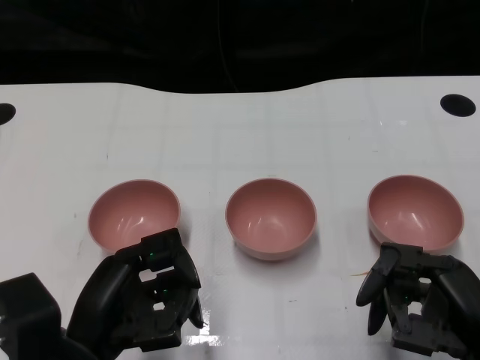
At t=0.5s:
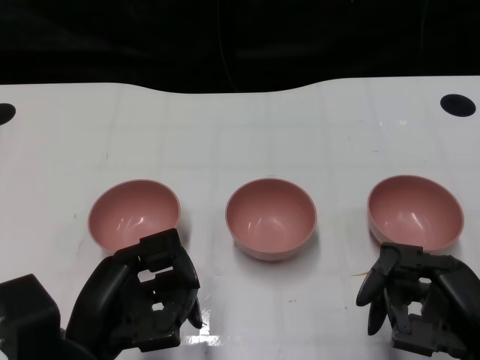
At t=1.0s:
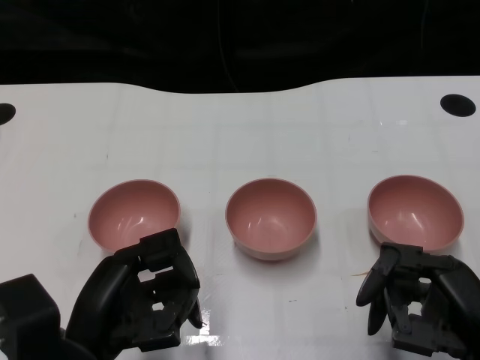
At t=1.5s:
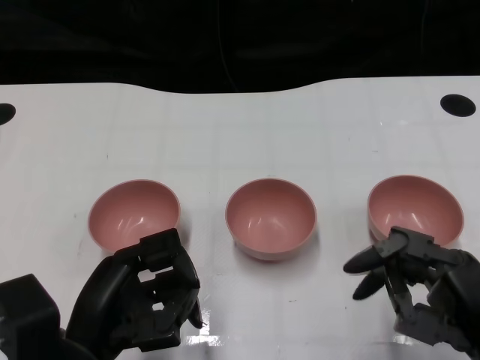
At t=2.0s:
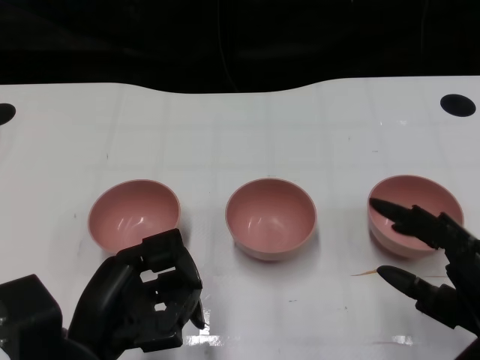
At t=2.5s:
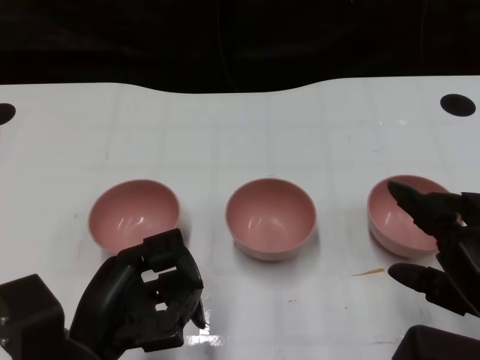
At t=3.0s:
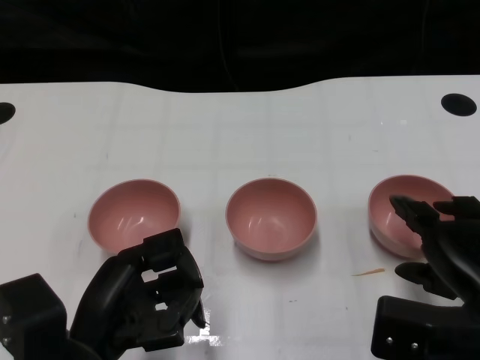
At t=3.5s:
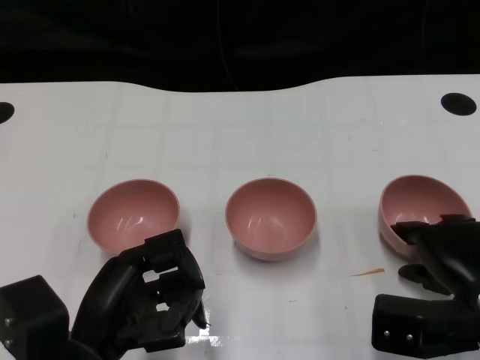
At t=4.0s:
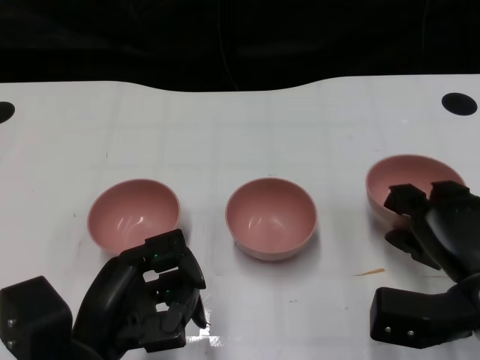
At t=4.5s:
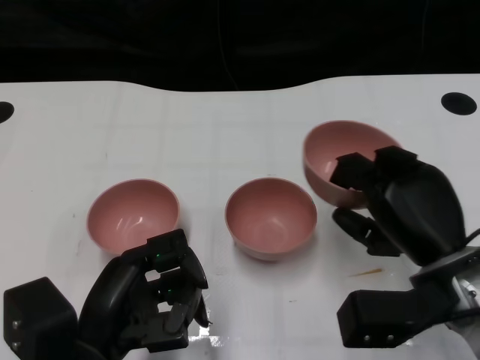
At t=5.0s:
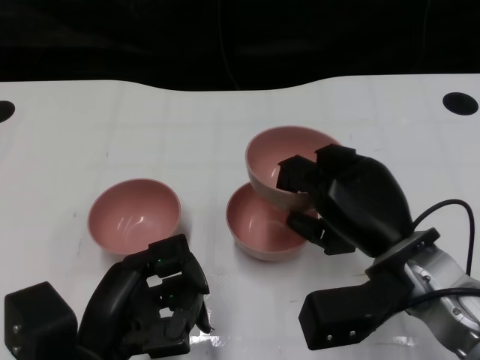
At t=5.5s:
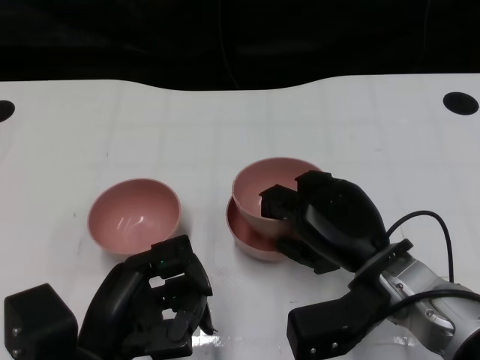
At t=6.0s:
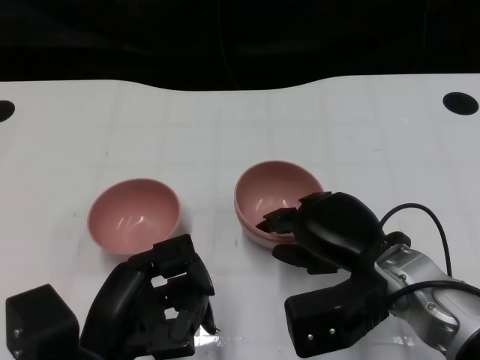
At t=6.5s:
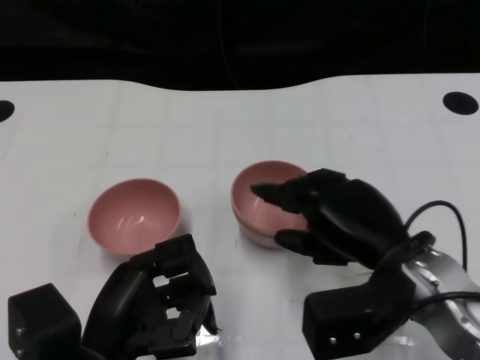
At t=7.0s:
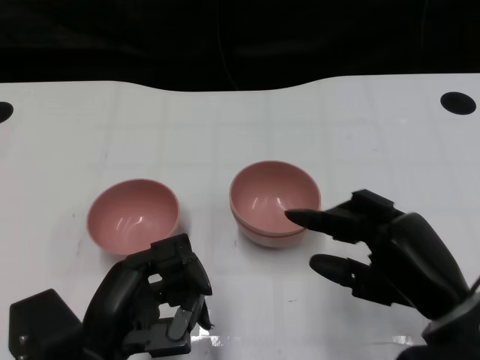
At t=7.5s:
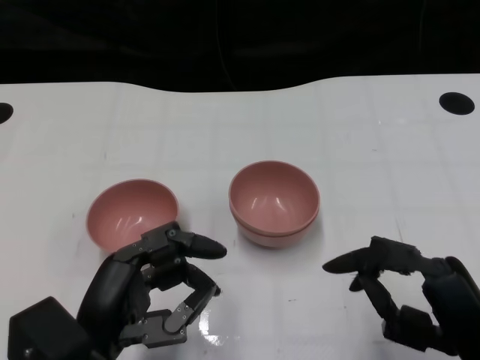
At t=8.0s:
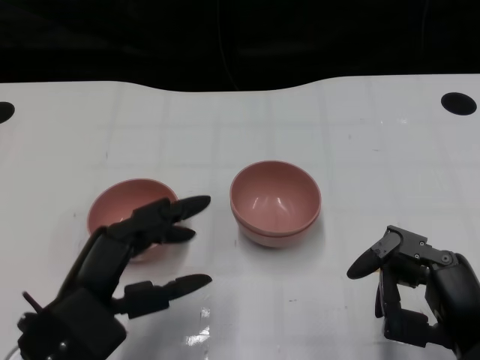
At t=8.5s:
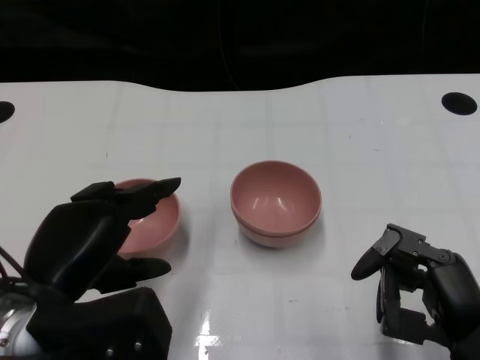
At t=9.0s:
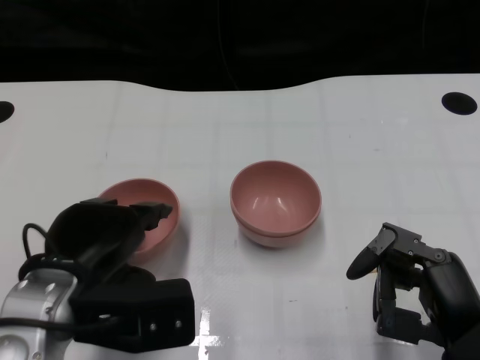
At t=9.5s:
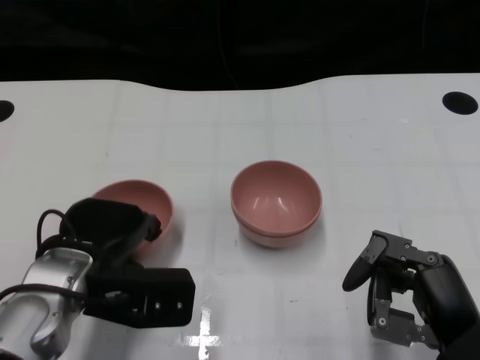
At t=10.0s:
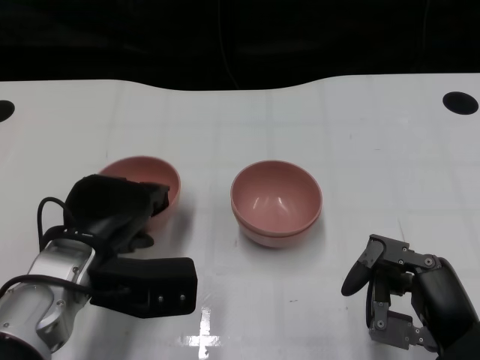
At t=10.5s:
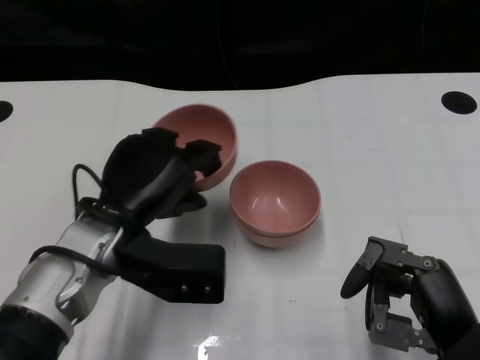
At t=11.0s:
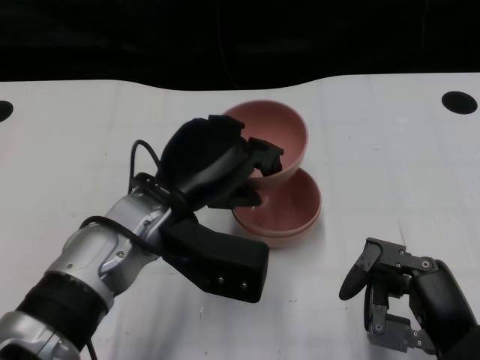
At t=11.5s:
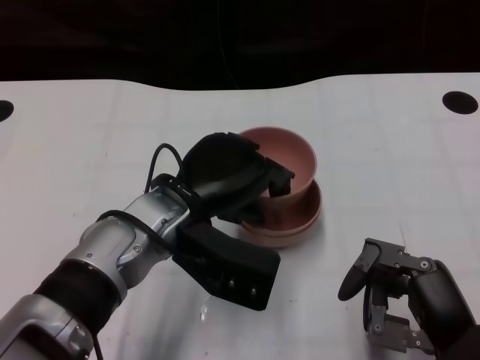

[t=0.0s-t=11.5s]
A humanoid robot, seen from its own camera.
Task of the whole recording: Pick up the bowl on one side of the table and place it on top of the middle bowl, then pick up the bowl on the other side of the table and place it on top of the middle bowls.
Step, t=1.5s to t=3.5s: Grasp the bowl on the right with the right gripper.
Step, t=4.0s to t=7.0s: Place the bowl on the right onto the bowl in the middle with right gripper.
Step, t=7.5s to t=9.5s: Grasp the bowl on the left with the left gripper.
t=2.0s to t=4.0s: The right hand goes some 10 cm forward.
t=4.0s to t=6.0s: The right hand goes about 10 cm to the left.
t=6.0s to t=7.5s: The right hand goes roughly 15 cm backward and to the right.
t=7.5s to t=9.5s: The left hand shifts about 10 cm forward.
t=9.5s to t=11.5s: The left hand travels to the right by roughly 10 cm.

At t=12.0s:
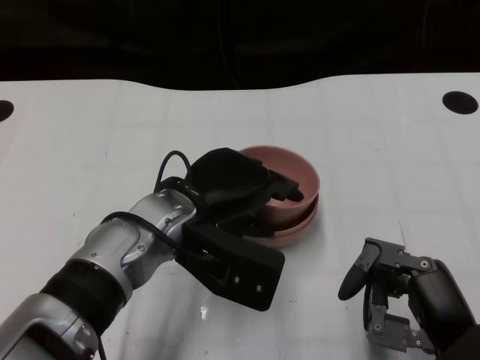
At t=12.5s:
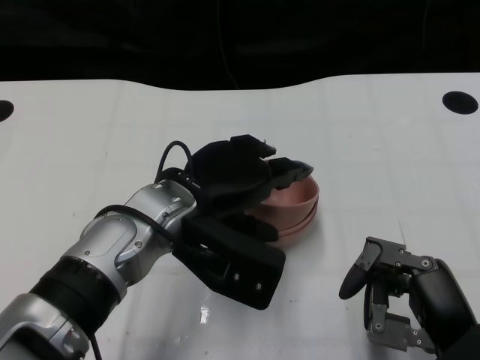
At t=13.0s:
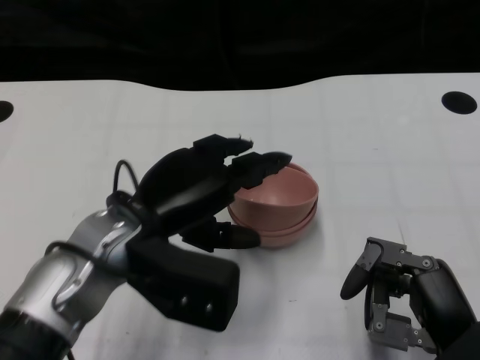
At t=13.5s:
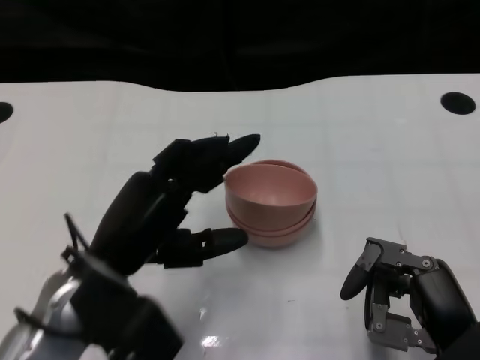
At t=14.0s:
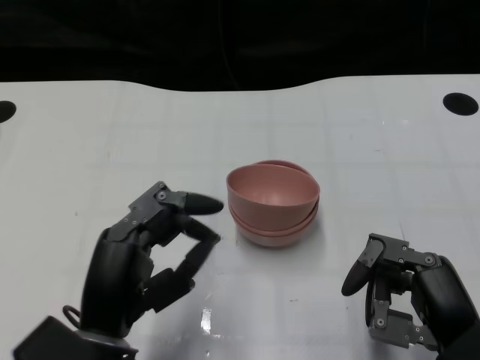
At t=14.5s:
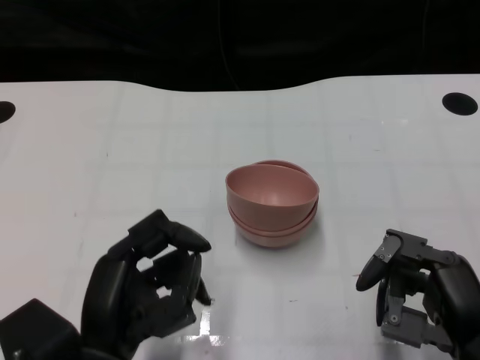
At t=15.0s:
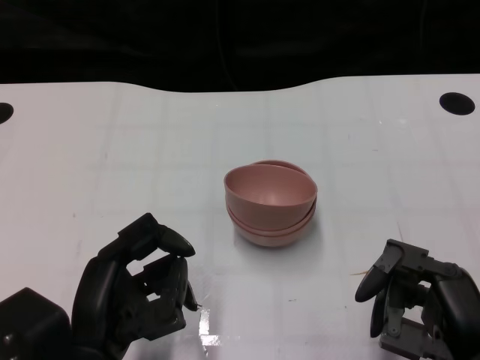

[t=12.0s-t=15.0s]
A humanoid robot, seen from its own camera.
Task of the whole recording: Pick up the bowl on one side of the table and place it on top of the middle bowl, then pick up the bowl on the other side of the table and place it on top of the middle bowls.
t=12.0s to t=13.5s: The left hand shifts roughly 10 cm to the left and backward.
t=13.5s to t=15.0s: The left hand shifts roughly 5 cm backward.
